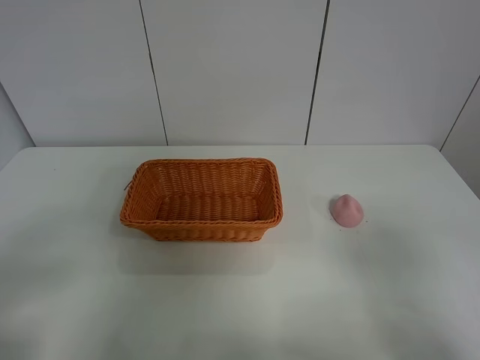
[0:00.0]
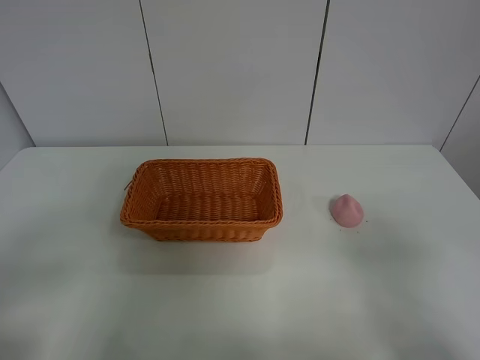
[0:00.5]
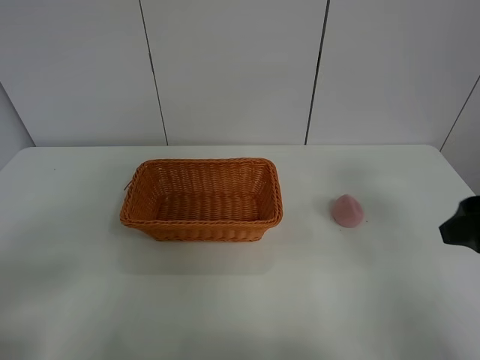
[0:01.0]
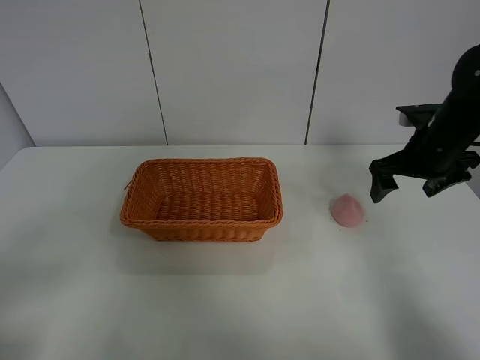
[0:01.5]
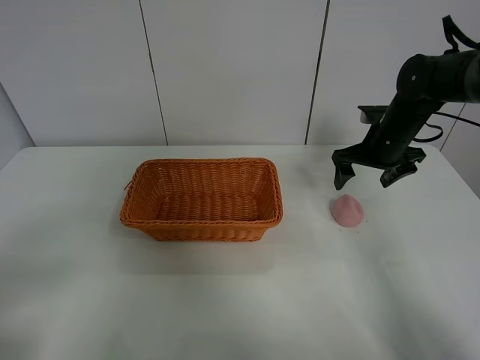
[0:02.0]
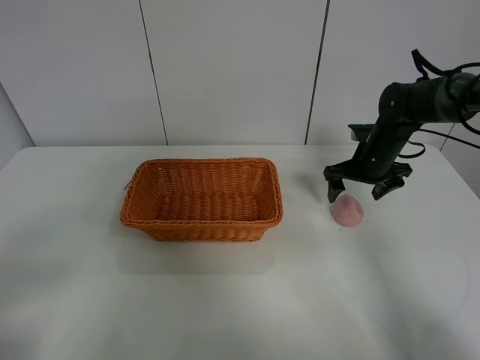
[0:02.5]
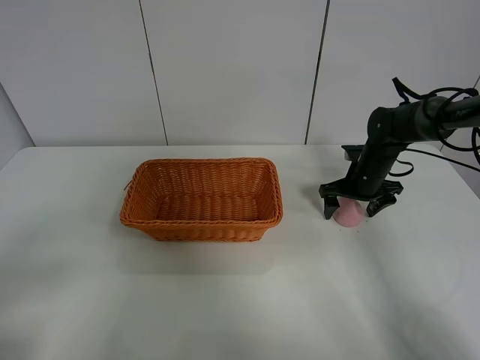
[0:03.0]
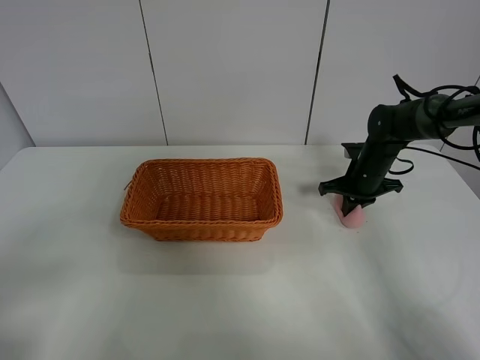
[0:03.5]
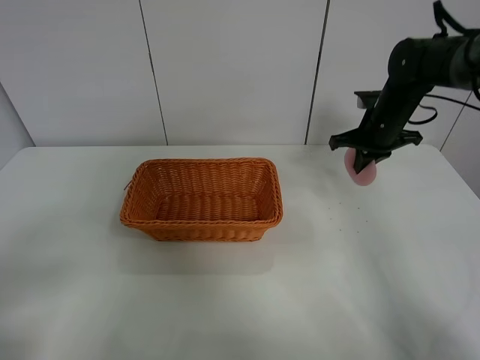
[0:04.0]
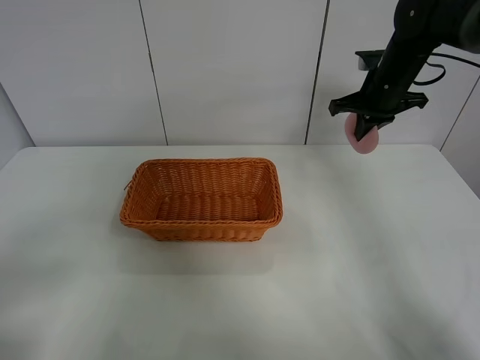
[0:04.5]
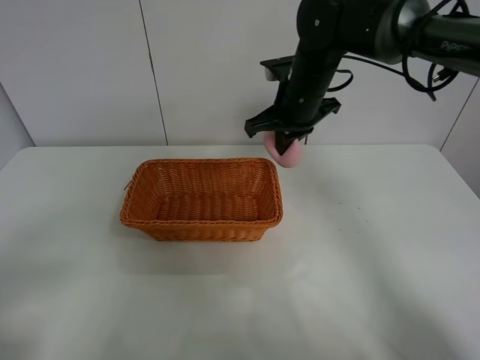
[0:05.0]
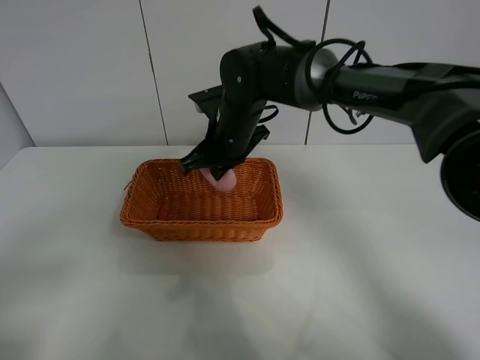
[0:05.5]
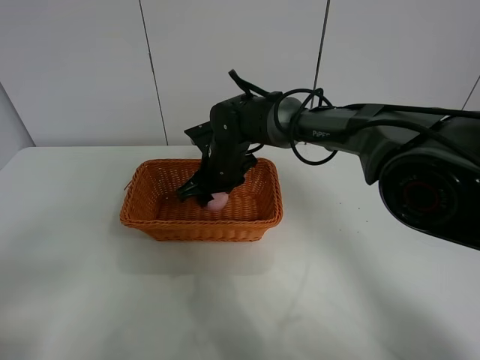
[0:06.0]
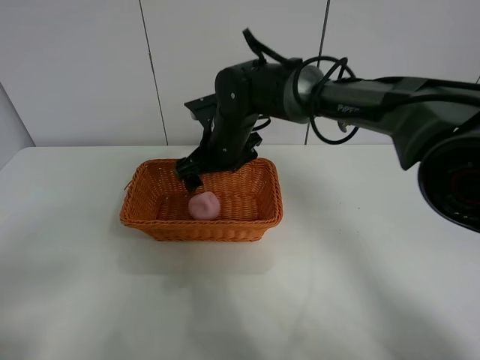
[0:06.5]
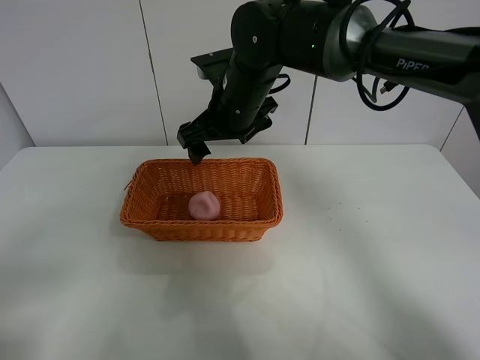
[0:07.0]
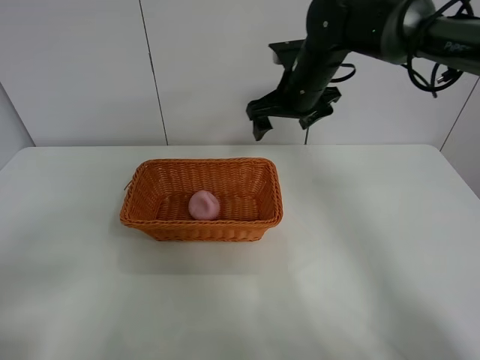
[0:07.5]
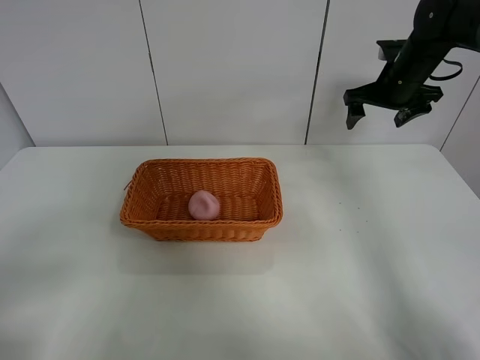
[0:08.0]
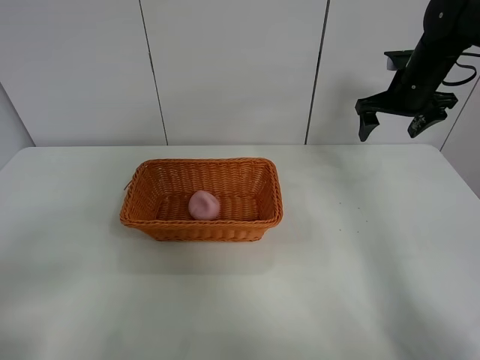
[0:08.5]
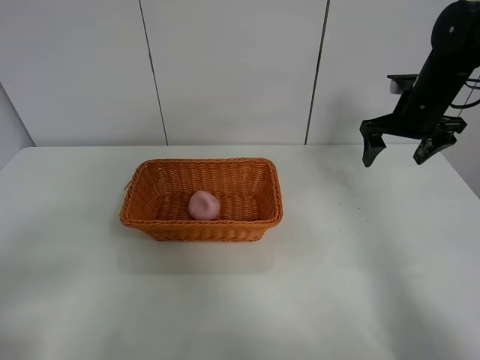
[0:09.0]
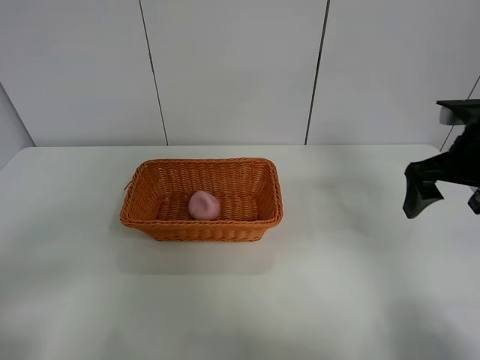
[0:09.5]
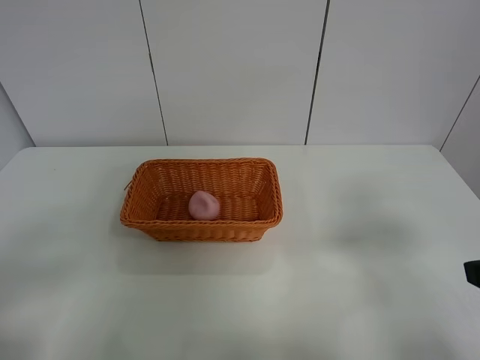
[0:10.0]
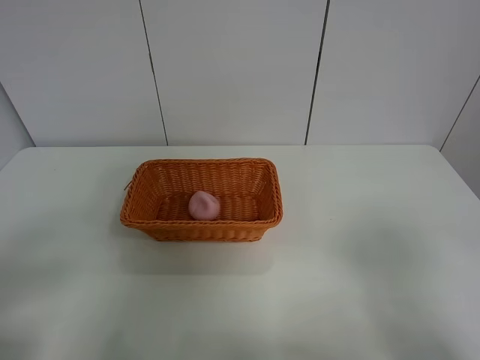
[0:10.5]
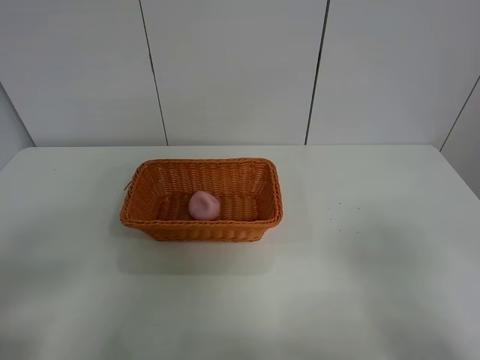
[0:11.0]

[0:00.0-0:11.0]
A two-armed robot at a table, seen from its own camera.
Step, 0:00.0 to 0:03.5: Grasp the peach with right gripper.
Step, 0:04.0 to 0:06.5: Place the peach in the basket with right gripper.
0:00.0 to 0:02.0: The right gripper heads forward, covering some 40 cm.
0:02.0 to 0:03.5: The right gripper moves downward, about 10 cm, and closes up.
0:03.5 to 0:05.5: The right gripper moves to the left, some 25 cm.
0:05.5 to 0:07.5: The right gripper is displaced to the right, upward and forward by about 15 cm, and opens up.
0:07.5 to 0:09.0: The right gripper moves to the right, about 15 cm.
0:09.0 to 0:11.0: The right gripper shifts some 40 cm backward.
